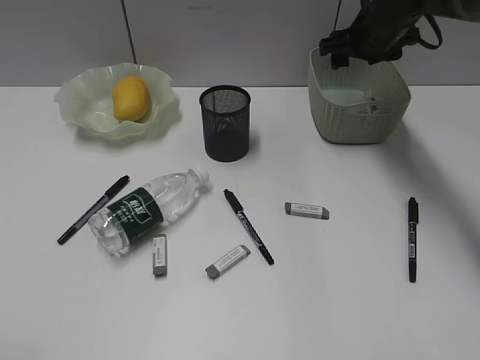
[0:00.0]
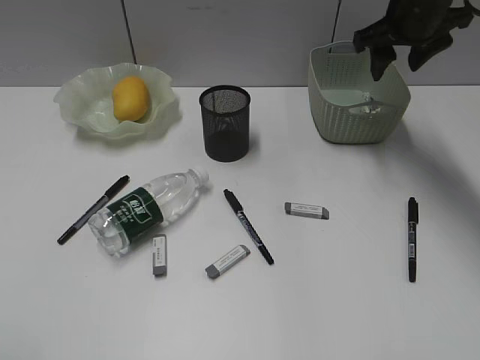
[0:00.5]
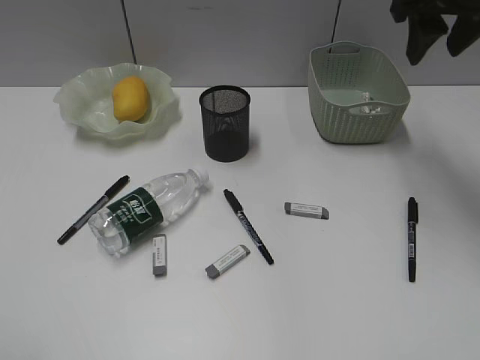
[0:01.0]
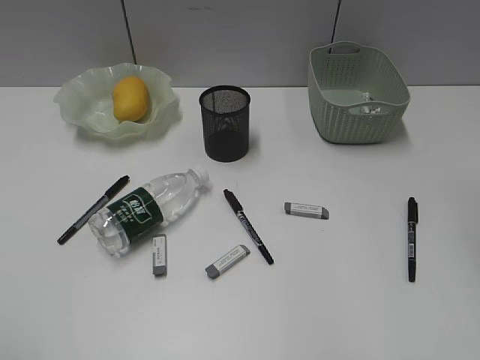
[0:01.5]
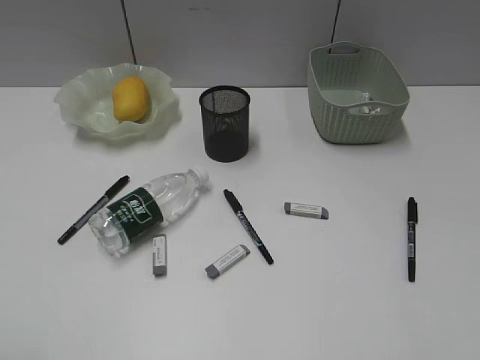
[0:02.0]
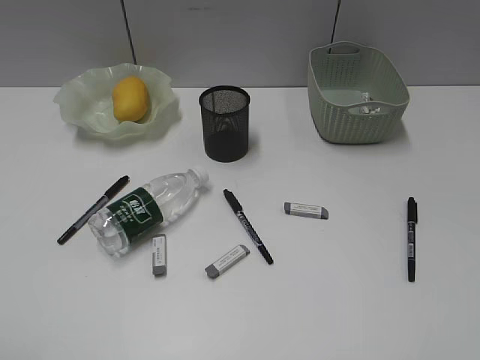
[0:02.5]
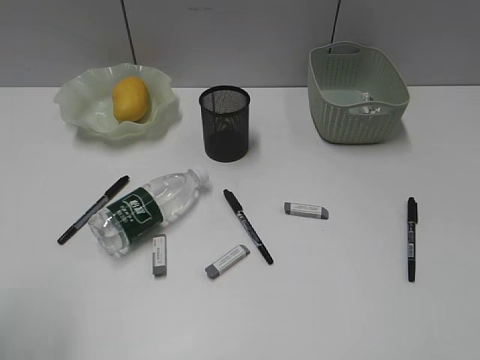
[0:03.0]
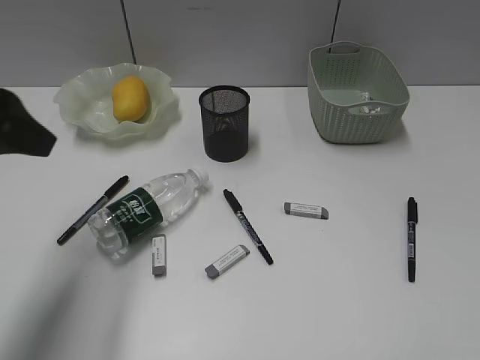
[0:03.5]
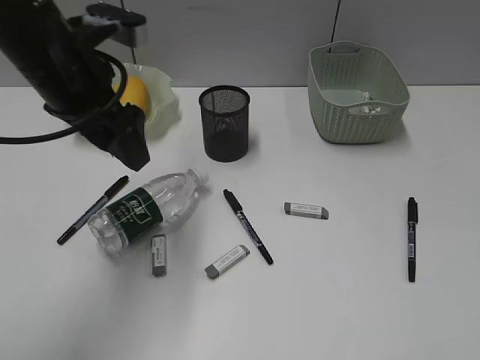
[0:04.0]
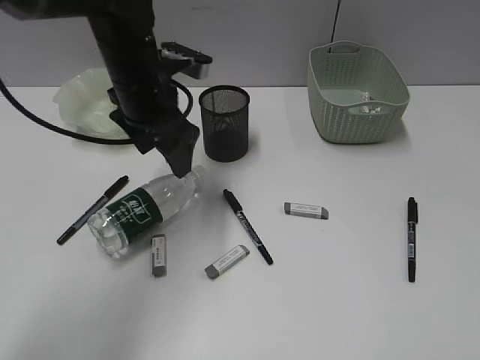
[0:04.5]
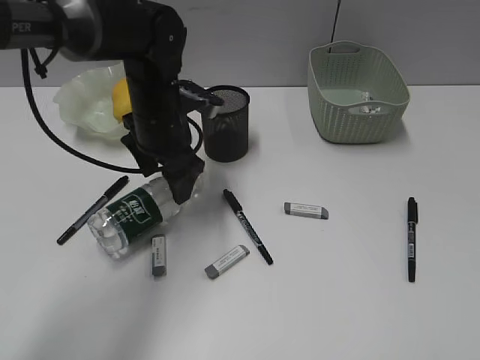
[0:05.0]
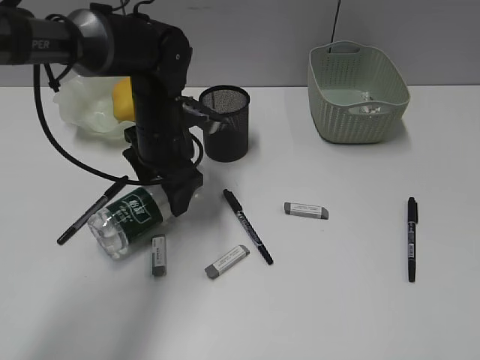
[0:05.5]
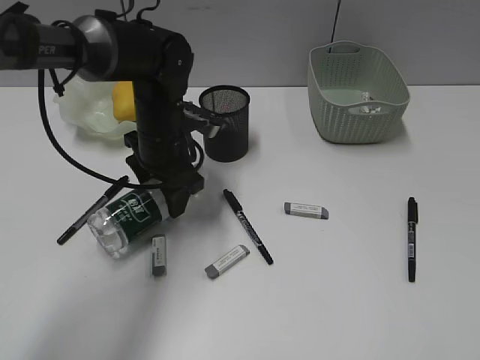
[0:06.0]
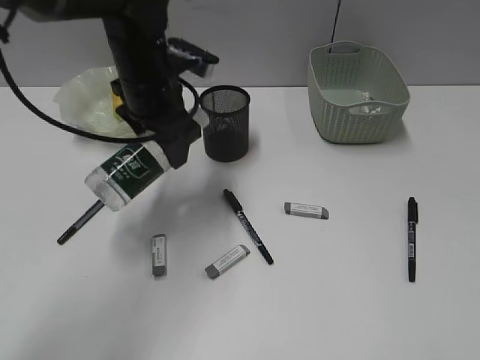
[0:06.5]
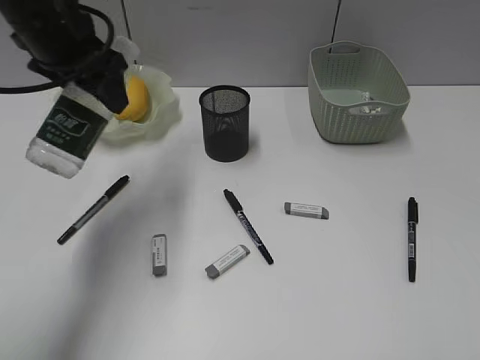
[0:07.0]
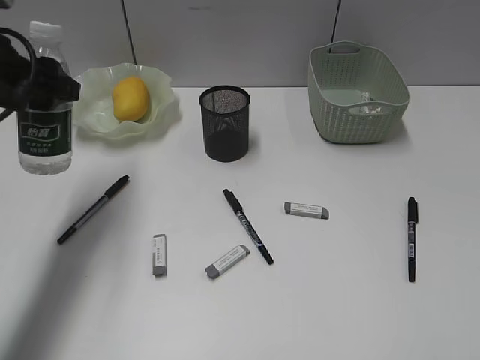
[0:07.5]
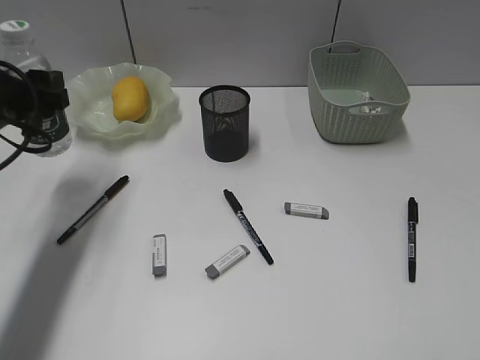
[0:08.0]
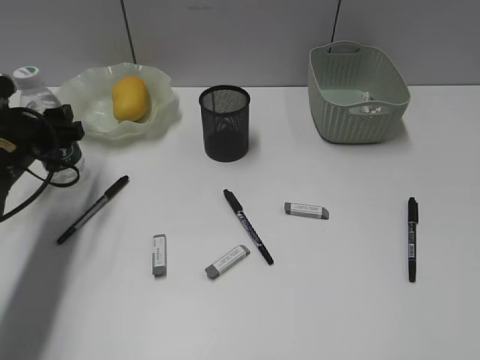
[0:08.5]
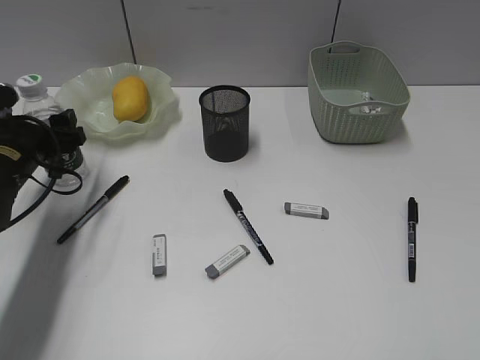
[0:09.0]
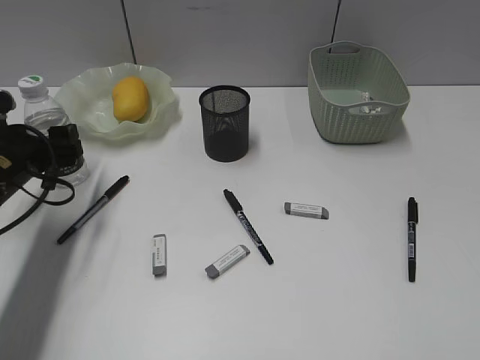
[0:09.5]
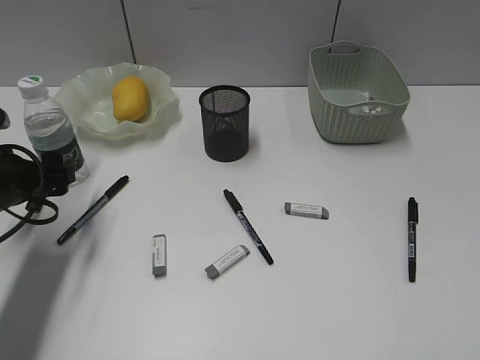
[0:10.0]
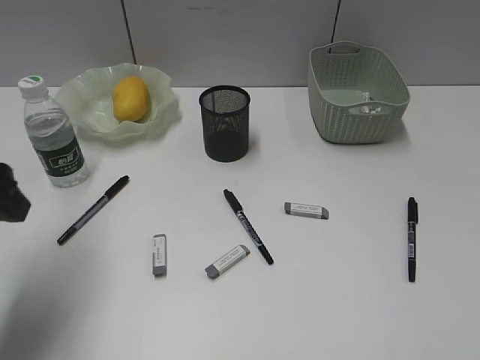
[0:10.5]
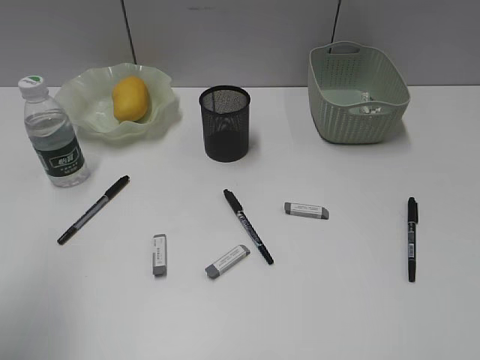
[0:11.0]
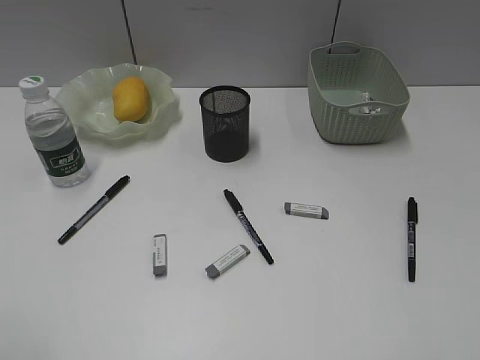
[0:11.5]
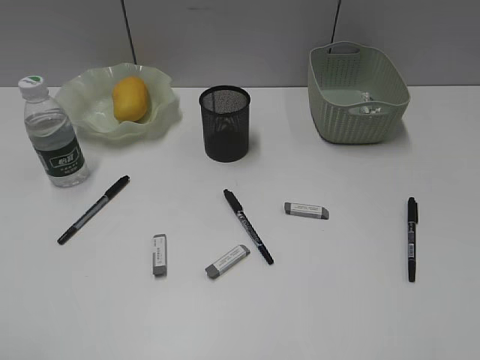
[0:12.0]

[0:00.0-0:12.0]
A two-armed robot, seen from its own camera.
Step, 0:00.0 to 0:06.0: Grasp the bottle with left gripper.
Step, 0:06.5 to 0:09.5: Stand the bottle with left gripper.
0:00.0 to 0:02.0: The right gripper is displaced backward by about 40 cm.
0:02.0 to 0:04.0: The left gripper travels forward and to the right by some 35 cm. The right gripper moves backward, about 10 cm.
0:04.0 to 0:06.0: The left gripper shifts some 15 cm downward, forward and to the right.
0:06.0 to 0:08.0: The left gripper is displaced to the left, upward and backward by about 20 cm.
0:08.0 to 0:10.0: The left gripper heads downward, covering approximately 10 cm.
0:10.0 to 0:12.0: The left gripper is displaced backward and upward by roughly 30 cm.

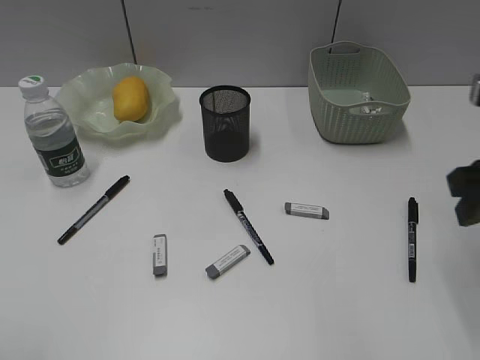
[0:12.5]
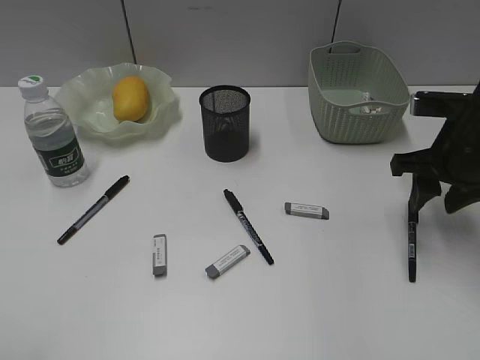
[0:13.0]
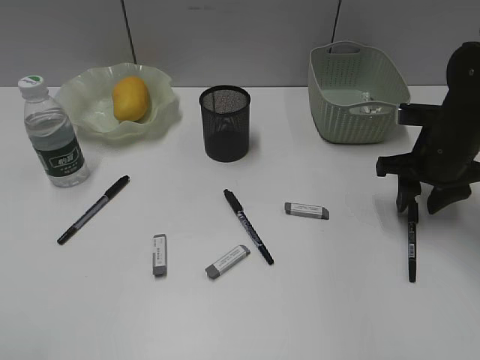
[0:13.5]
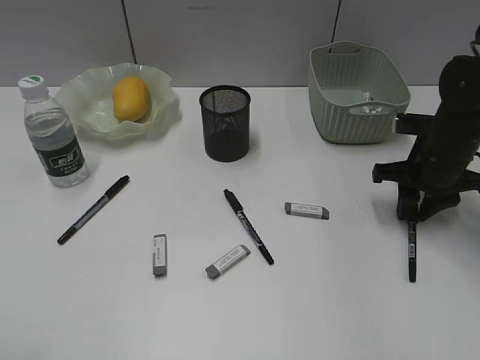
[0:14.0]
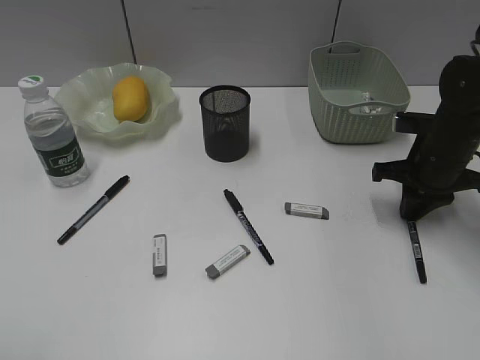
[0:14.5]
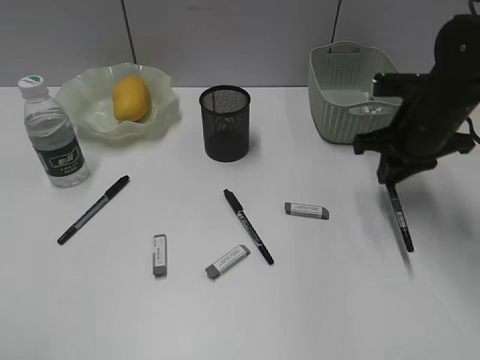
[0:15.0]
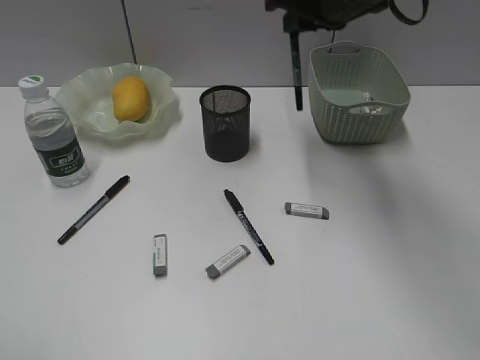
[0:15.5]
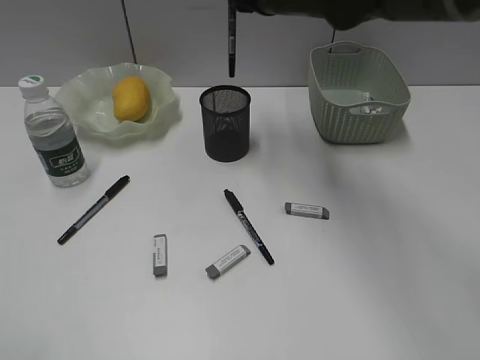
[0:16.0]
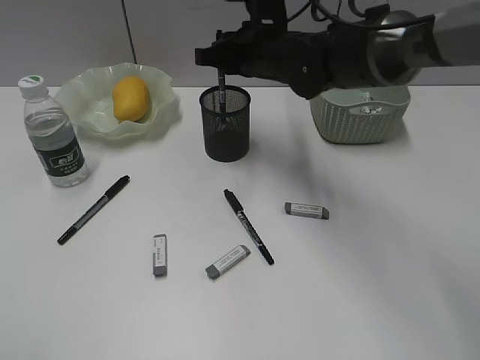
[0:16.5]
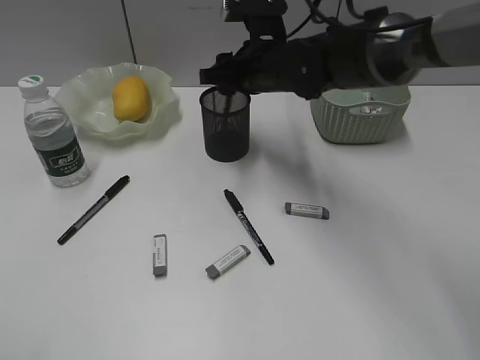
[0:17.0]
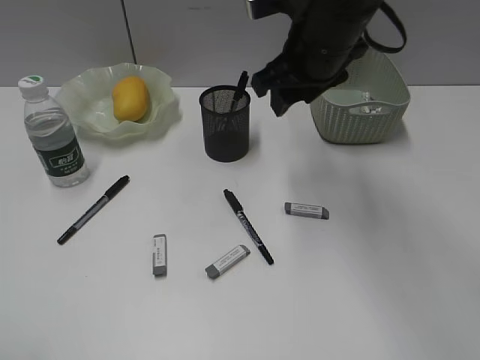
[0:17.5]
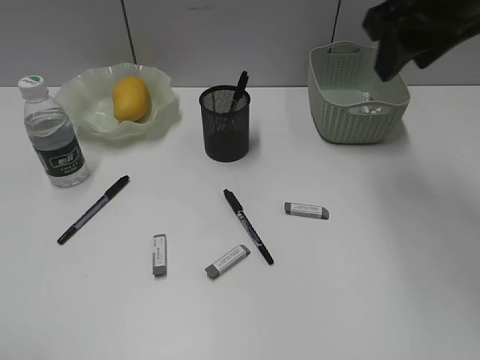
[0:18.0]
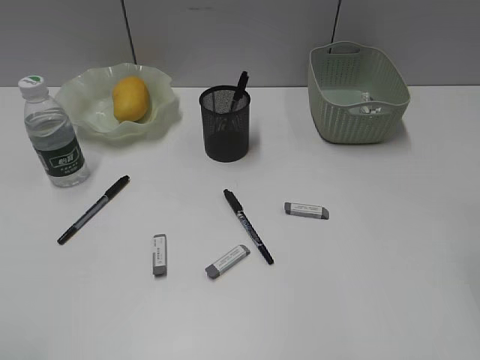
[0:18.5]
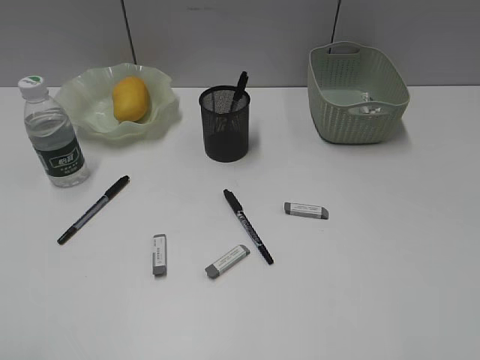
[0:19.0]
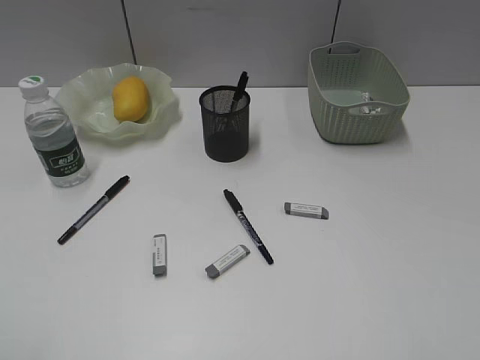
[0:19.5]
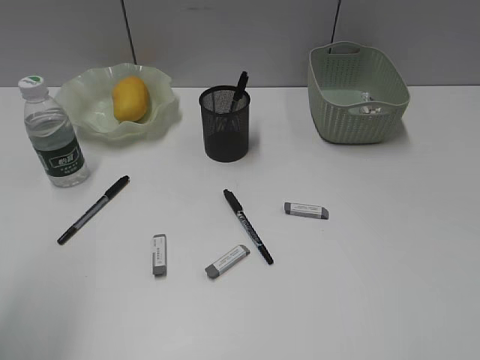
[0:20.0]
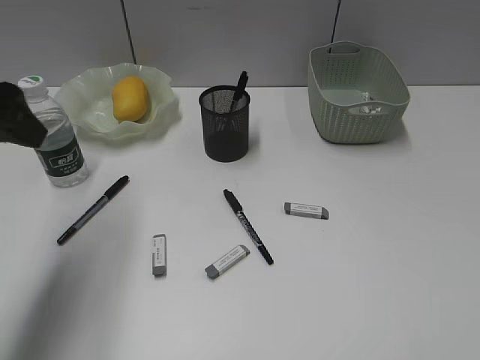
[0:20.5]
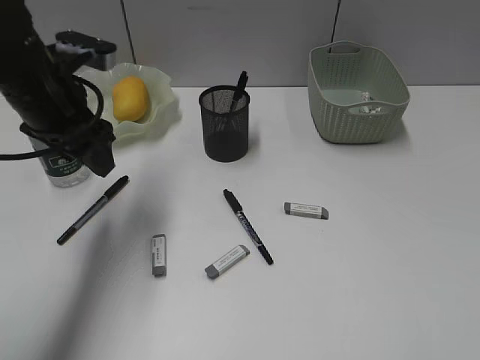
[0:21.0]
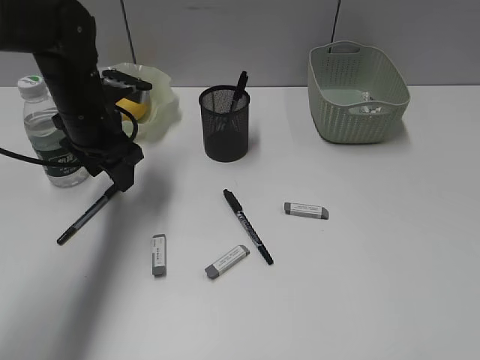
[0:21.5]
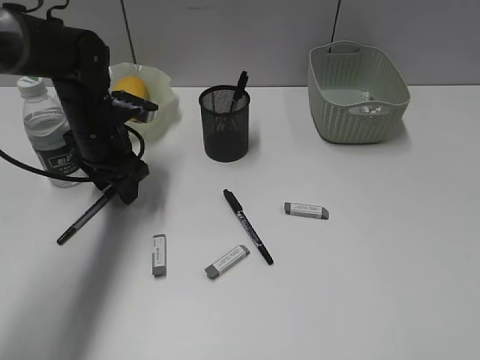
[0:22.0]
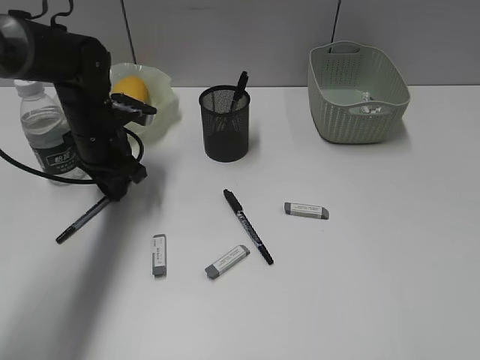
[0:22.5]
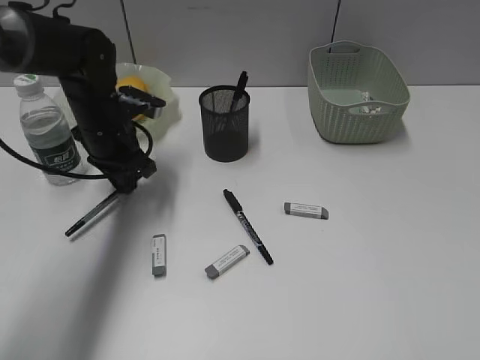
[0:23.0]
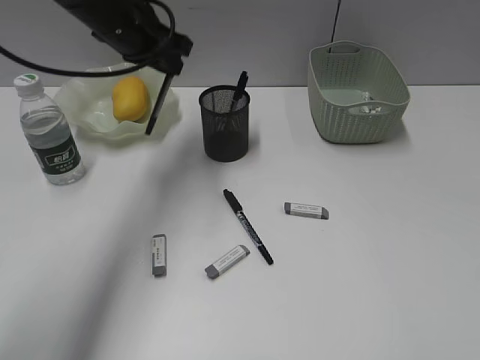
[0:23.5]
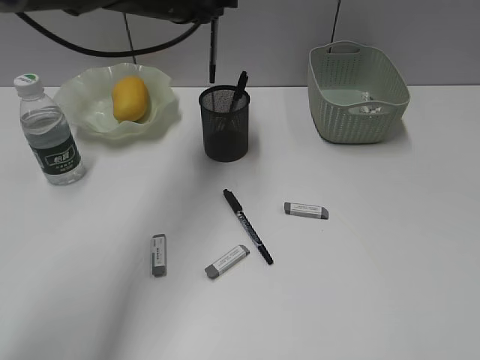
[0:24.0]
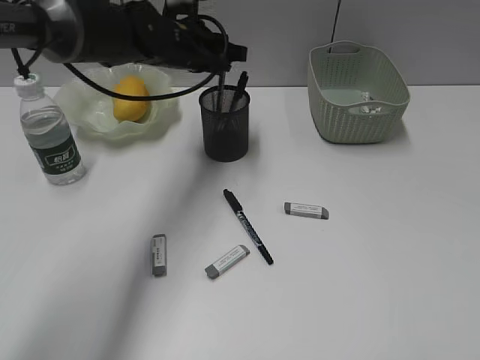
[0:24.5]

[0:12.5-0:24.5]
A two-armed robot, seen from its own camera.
Step, 0:12.5 to 0:14.5: Grasp the black pen with right gripper.
Step, 0:15.0 to 0:17.5: Place the black pen in pen holder with right gripper.
Step, 0:18.0 to 0:22.5: Grasp the black pen with left gripper.
0:12.5 to 0:14.5: The right gripper moves forward and downward, about 20 cm, and closes its fingers.
0:14.5 to 0:16.5: The right gripper is displaced to the left by roughly 20 cm.
0:16.5 to 0:18.5: The right gripper shifts approximately 35 cm backward, to the right and upward, and opens.
0:18.5 to 0:20.5: The left gripper goes approximately 25 cm forward.
0:20.5 to 0:22.5: The left gripper travels downward, forward and to the right by about 25 cm, and closes up.
0:22.5 to 0:24.5: The left gripper moves to the right, upward and forward, approximately 15 cm.

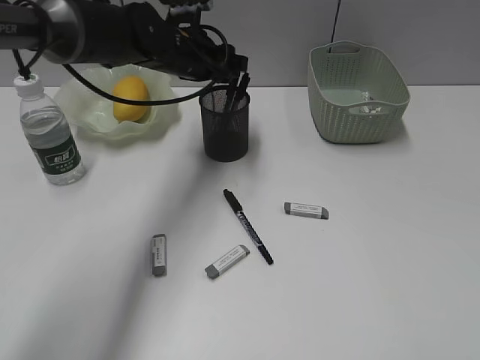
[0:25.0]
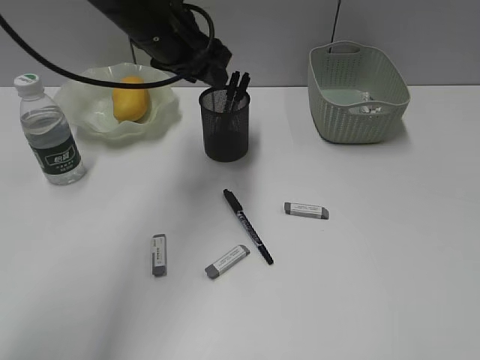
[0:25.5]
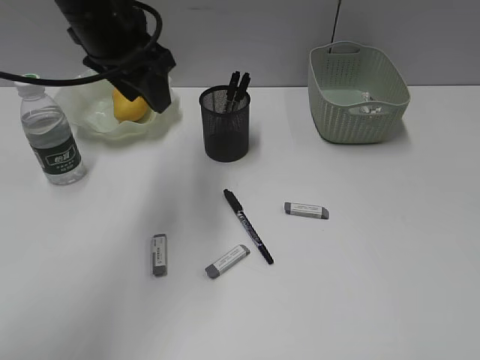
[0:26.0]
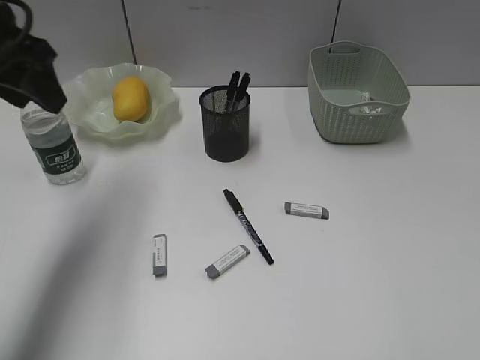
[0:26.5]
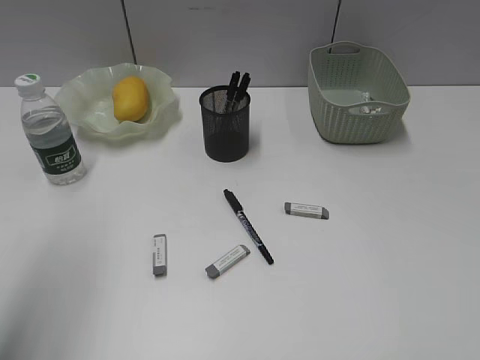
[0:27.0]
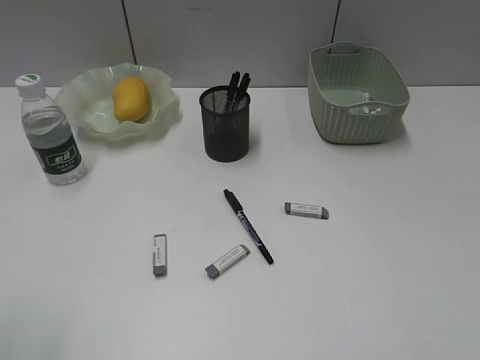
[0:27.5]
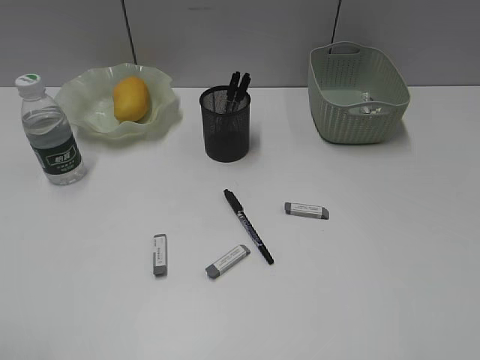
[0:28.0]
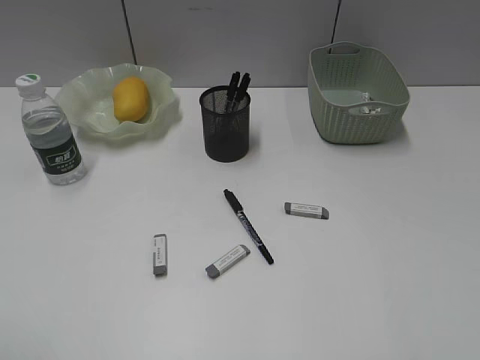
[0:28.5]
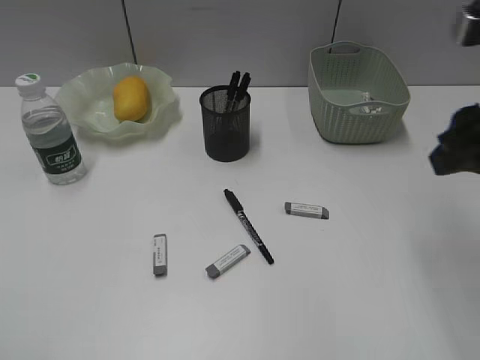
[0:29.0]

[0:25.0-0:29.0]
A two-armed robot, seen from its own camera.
0:25.0 to 0:27.0: The left gripper heads backward, to the left and upward, covering roughly 35 cm.
0:27.0 to 0:29.0: The right gripper heads forward, covering approximately 20 cm, while the left gripper goes some 20 cm backward.
